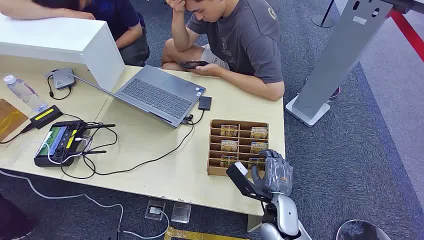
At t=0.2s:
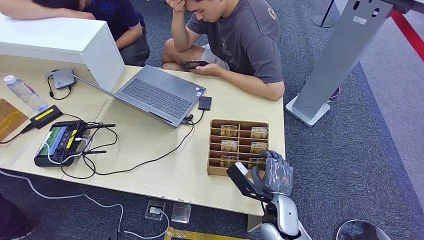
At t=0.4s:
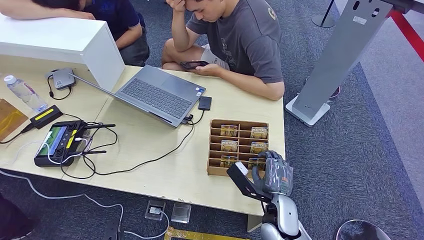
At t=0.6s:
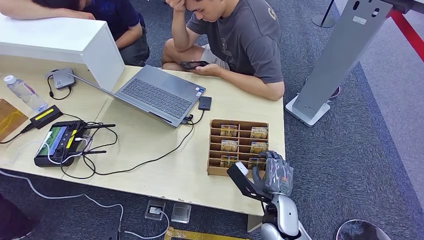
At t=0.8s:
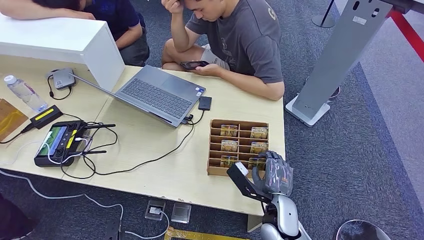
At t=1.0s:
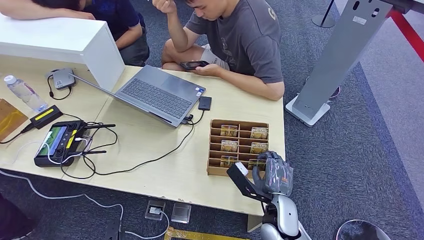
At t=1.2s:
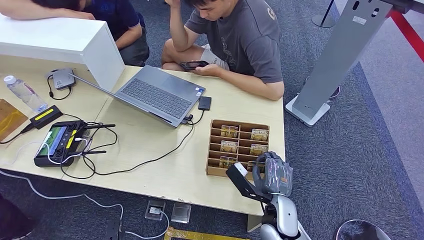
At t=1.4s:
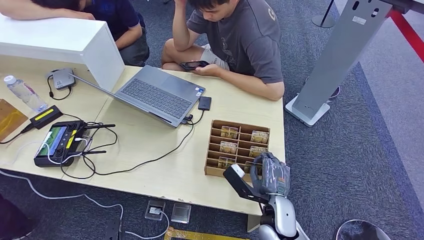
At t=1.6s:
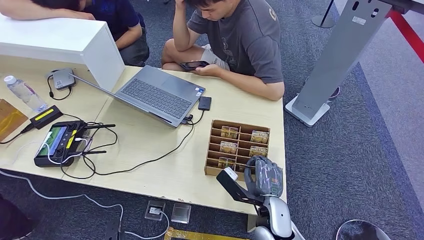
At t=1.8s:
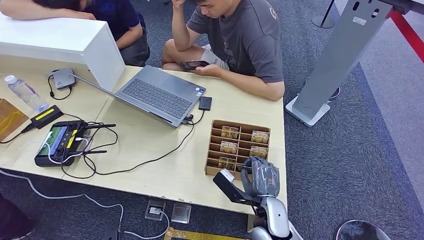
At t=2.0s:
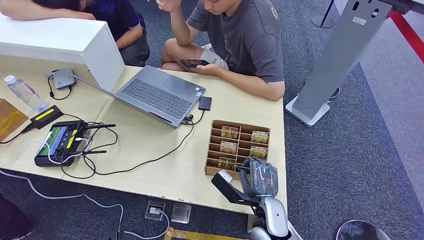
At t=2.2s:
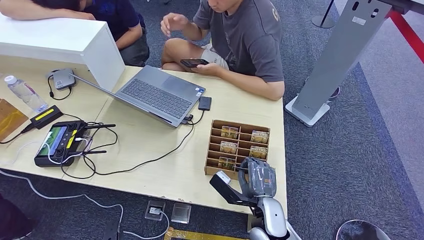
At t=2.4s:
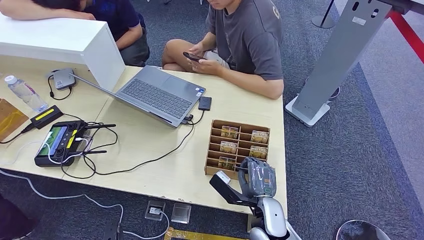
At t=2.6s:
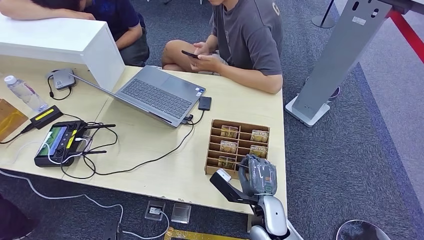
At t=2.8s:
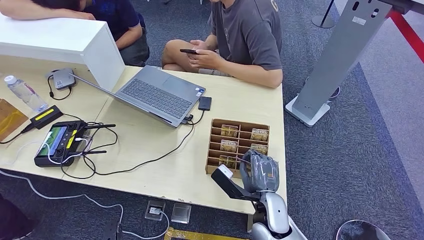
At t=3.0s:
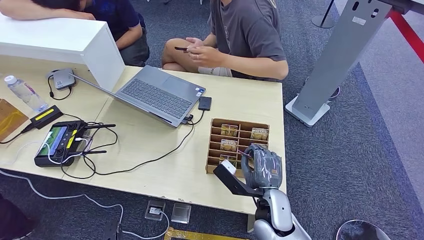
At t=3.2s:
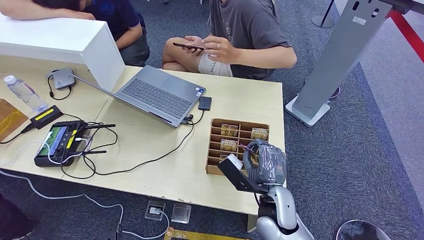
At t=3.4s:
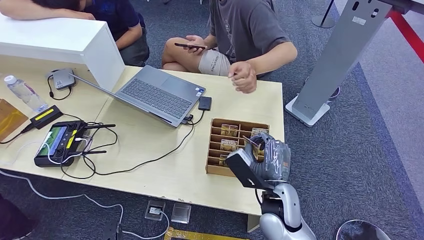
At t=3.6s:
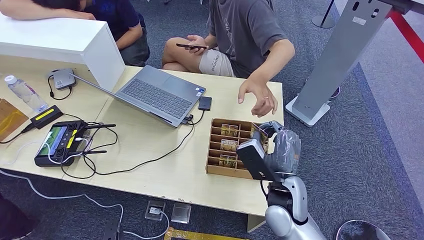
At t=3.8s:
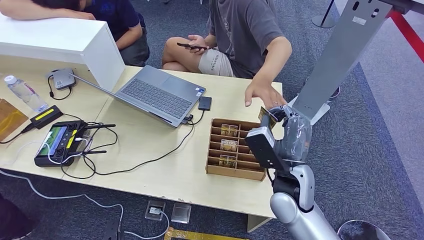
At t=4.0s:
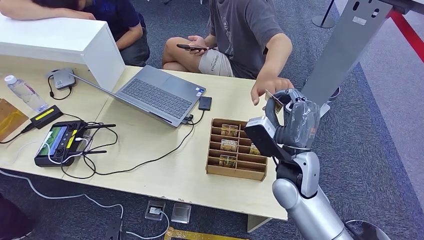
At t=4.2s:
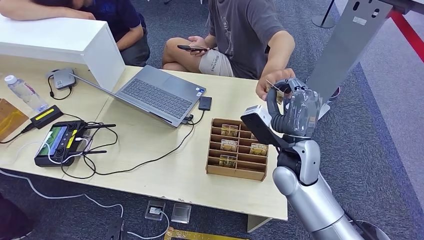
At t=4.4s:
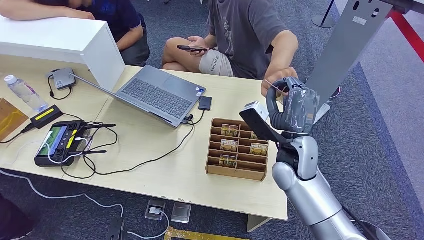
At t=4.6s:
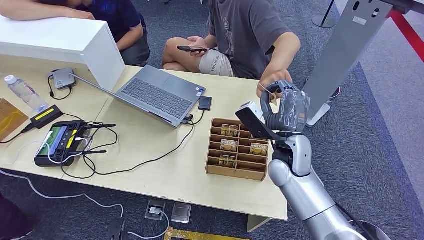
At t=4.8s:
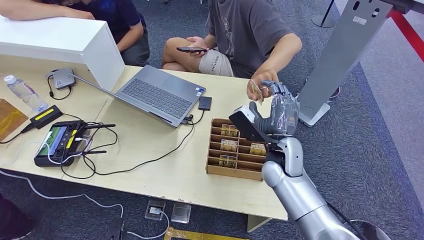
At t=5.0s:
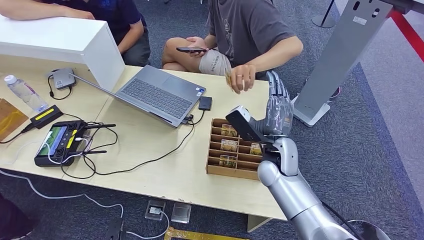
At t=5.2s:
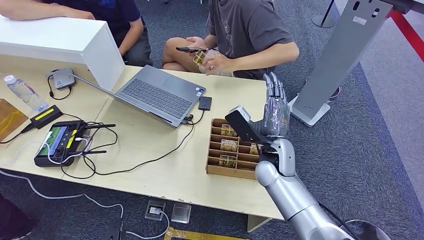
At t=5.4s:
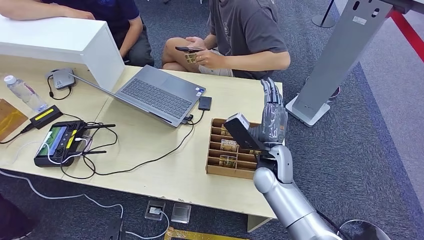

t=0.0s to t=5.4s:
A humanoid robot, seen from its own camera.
Step, t=0.0s to t=3.2s: Pick up the room card from the card holder.
Step, t=3.6s to t=5.4s: Hand the room card to the target.
t=1.4s to t=2.8s: There are only small adjustments of the hands.
t=2.8s to t=4.0s: The right hand travels upward and forward by roughly 15 cm.
t=4.0s to t=5.4s: The right hand moves downward, approximately 5 cm.
